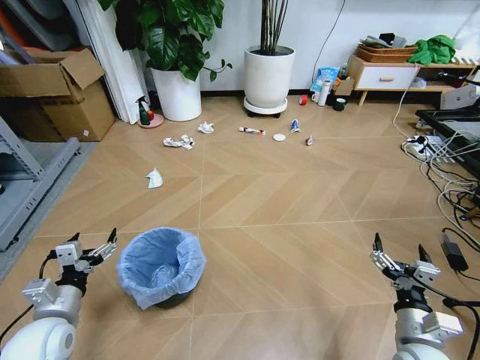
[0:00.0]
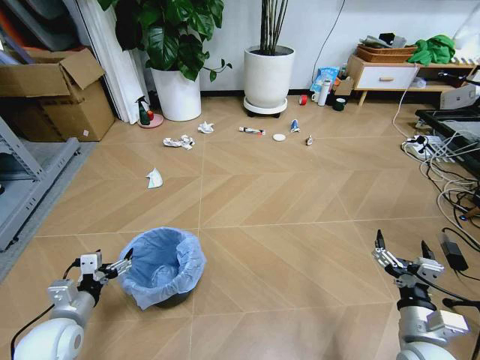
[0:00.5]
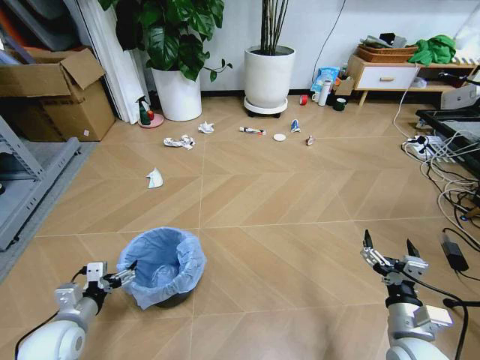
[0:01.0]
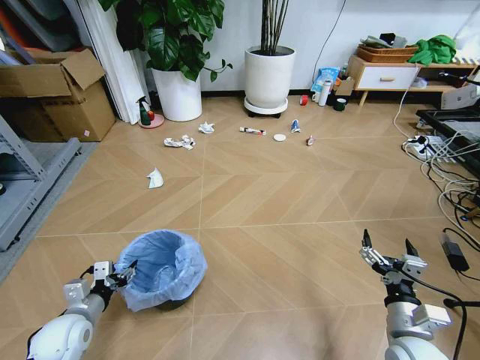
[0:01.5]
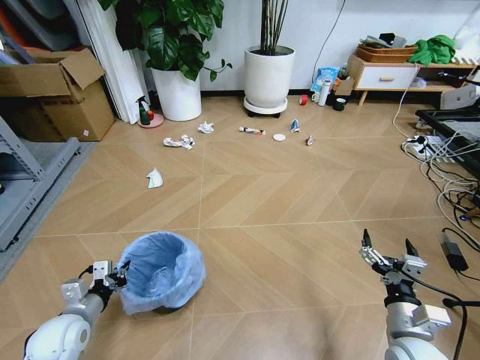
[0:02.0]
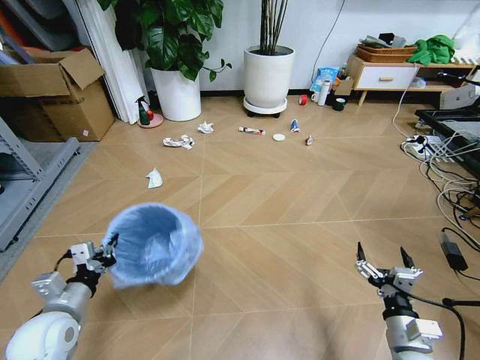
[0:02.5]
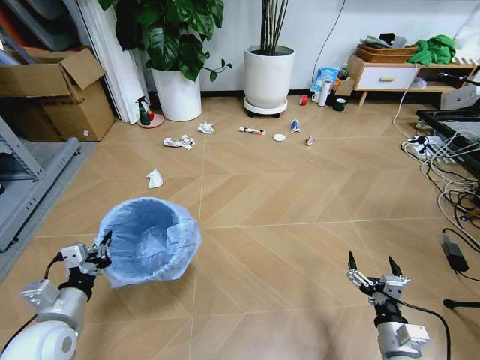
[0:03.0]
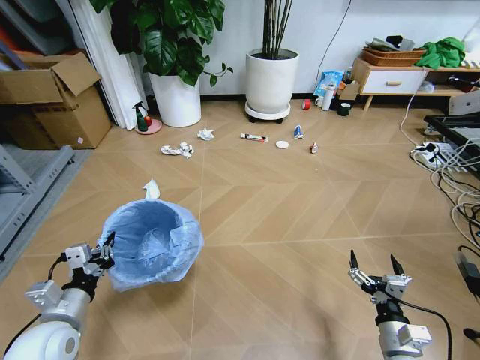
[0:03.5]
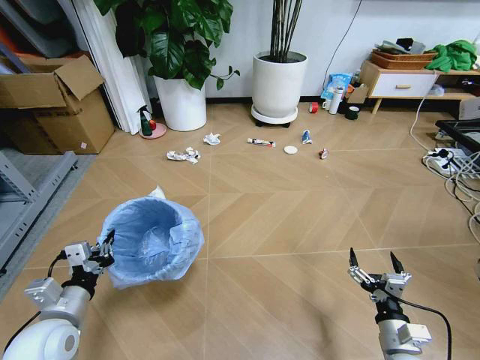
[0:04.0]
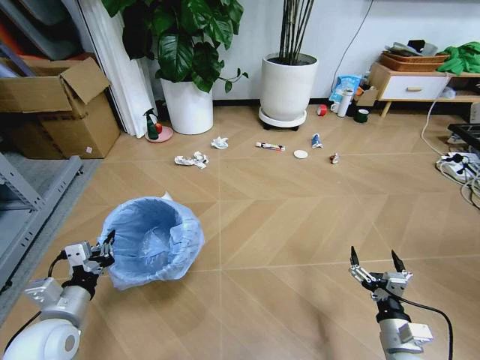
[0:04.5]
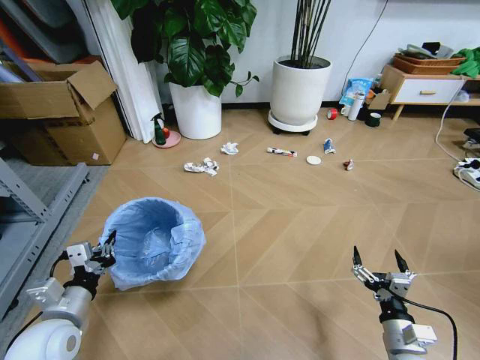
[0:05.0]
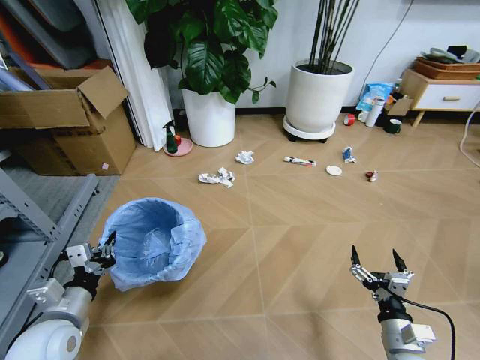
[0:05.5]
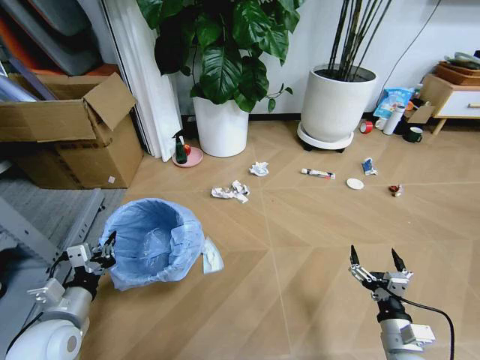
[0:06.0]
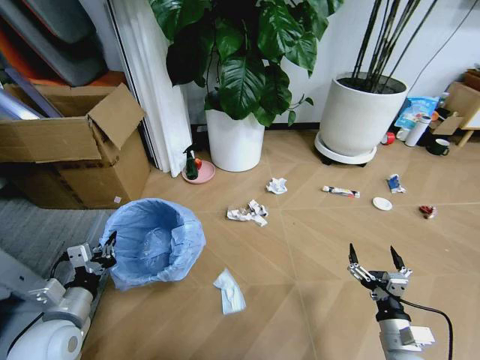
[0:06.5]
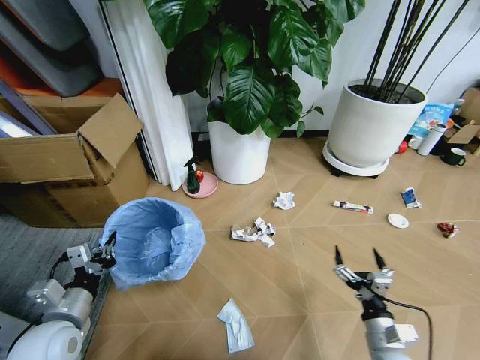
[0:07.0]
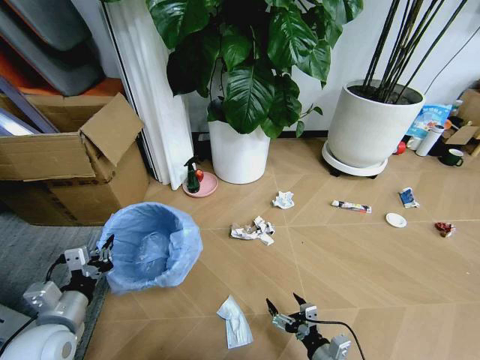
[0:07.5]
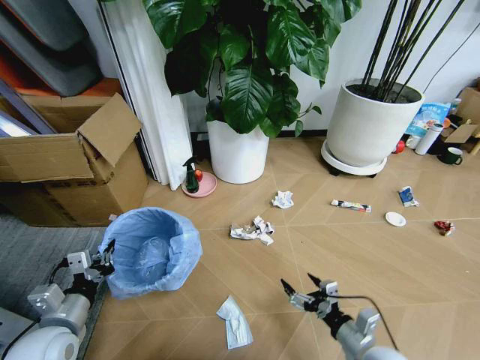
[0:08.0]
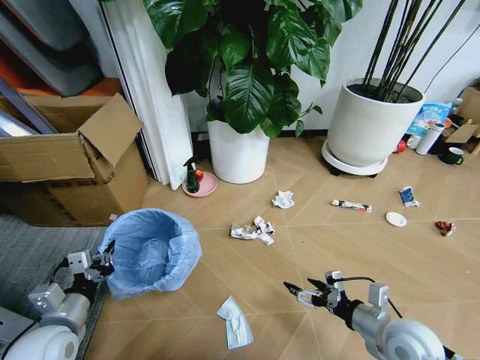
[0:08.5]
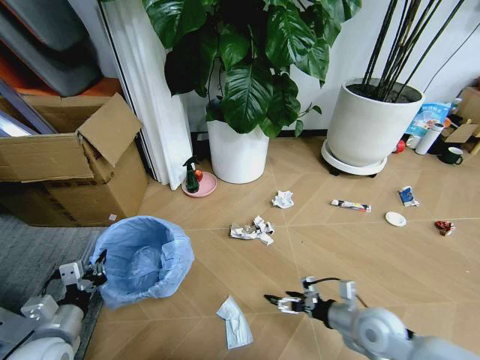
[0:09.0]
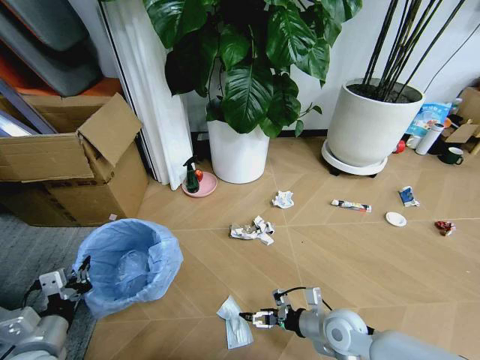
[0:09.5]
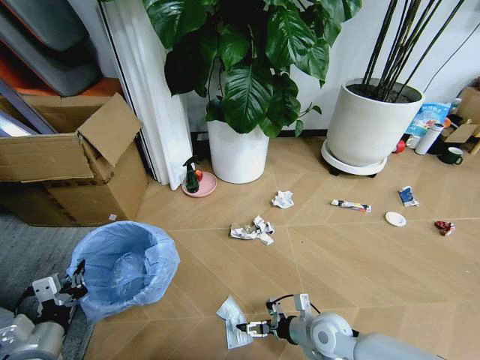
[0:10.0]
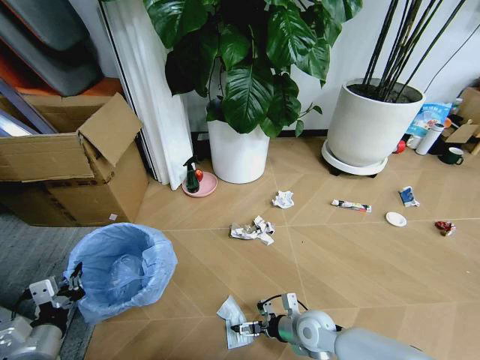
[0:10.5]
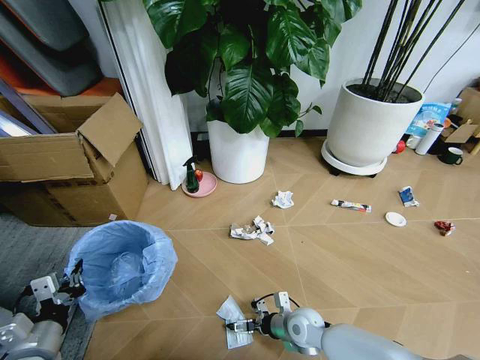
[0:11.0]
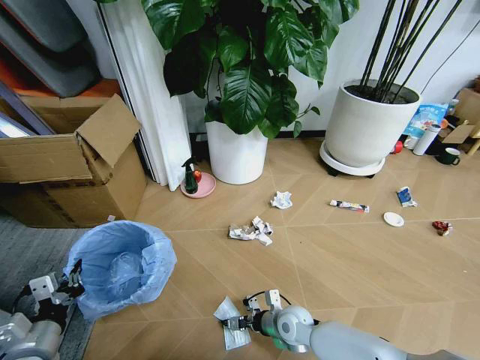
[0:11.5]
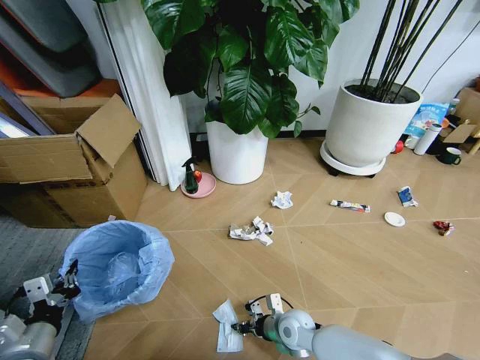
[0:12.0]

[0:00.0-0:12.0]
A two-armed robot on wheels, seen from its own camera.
Task of the whole recording: Pick up the trash bin and place the garbage on the floor into it.
2.0 to 4.0 s: The left gripper heads upward, covering approximately 5 cm. The right gripper shifts about 5 cm downward.
8.0 to 10.0 s: The left gripper changes place by approximately 5 cm. The right gripper is displaced forward and to the left by about 10 cm.
10.0 to 12.0 s: The right gripper shifts approximately 10 cm to the left and downward, and closes up.

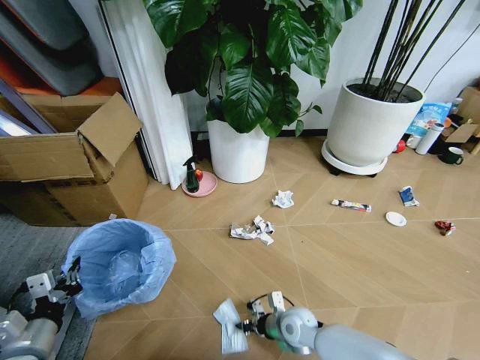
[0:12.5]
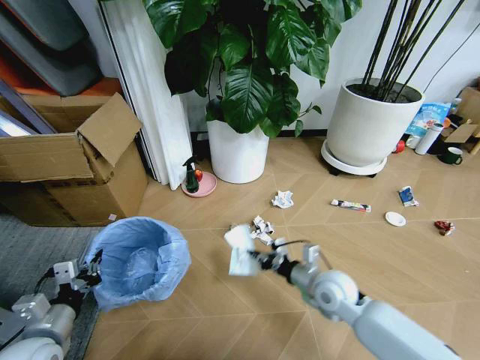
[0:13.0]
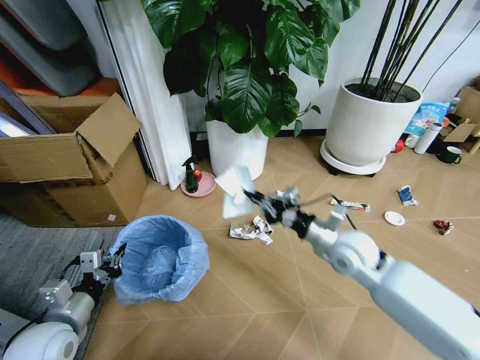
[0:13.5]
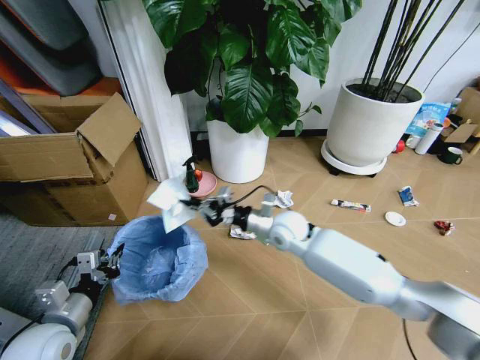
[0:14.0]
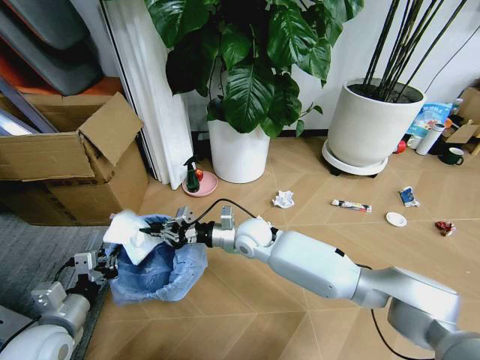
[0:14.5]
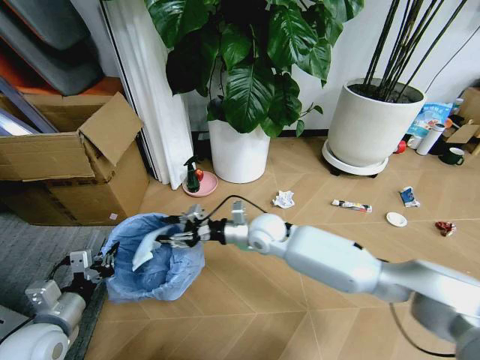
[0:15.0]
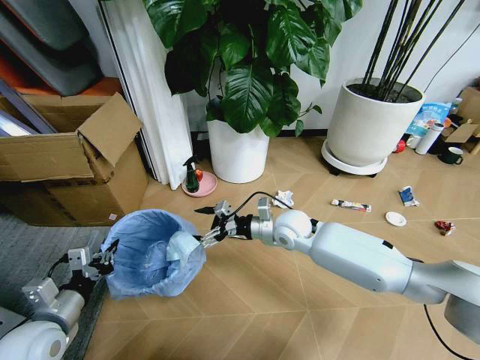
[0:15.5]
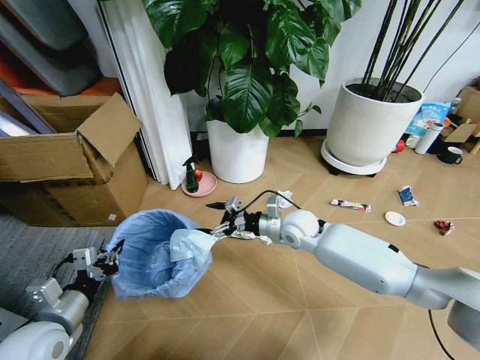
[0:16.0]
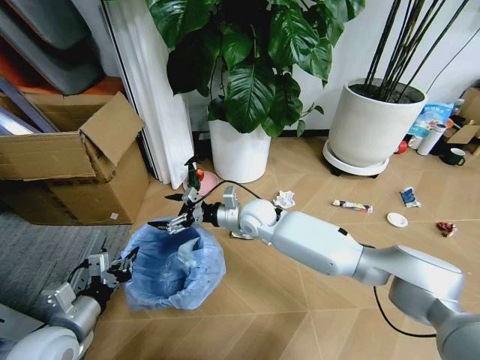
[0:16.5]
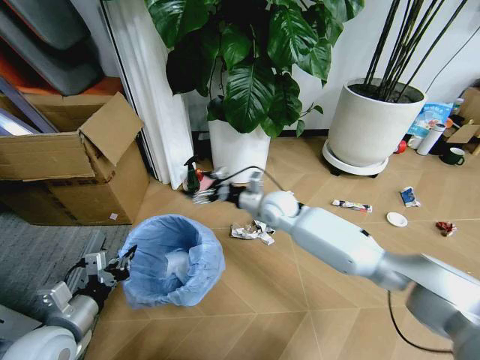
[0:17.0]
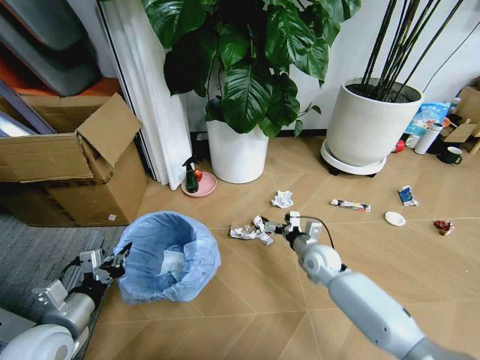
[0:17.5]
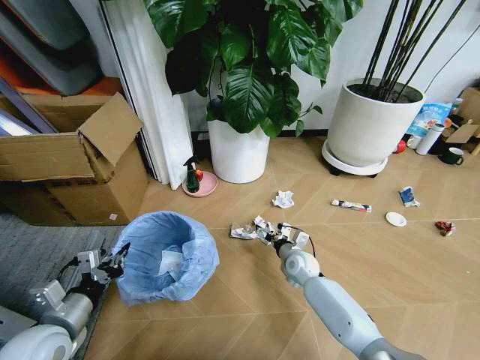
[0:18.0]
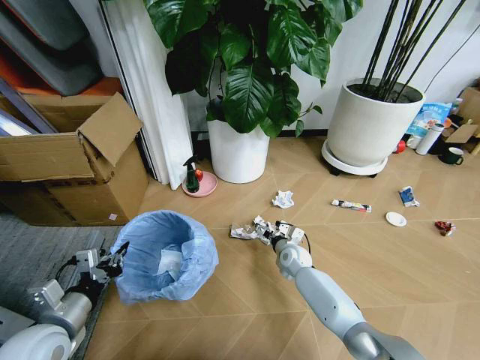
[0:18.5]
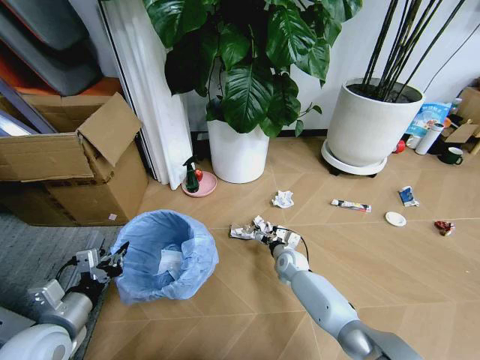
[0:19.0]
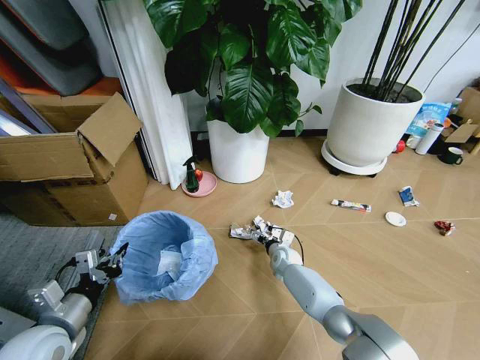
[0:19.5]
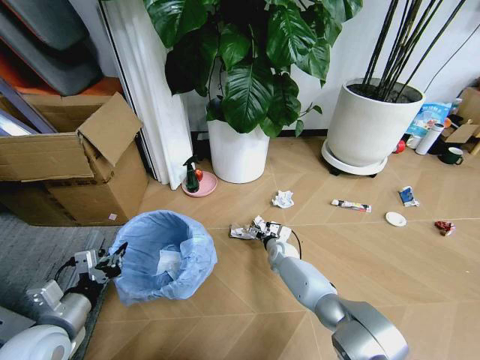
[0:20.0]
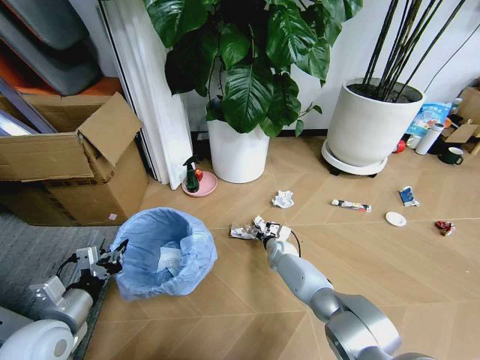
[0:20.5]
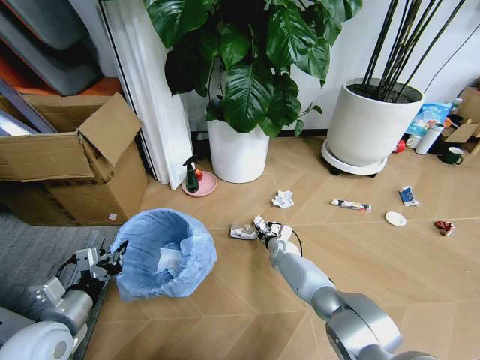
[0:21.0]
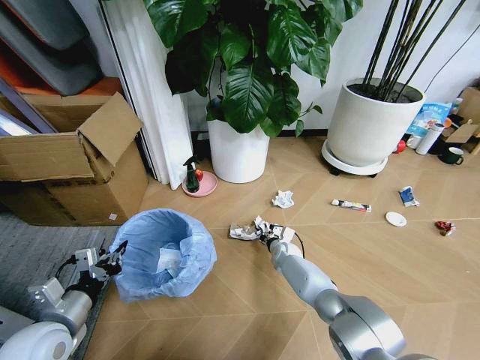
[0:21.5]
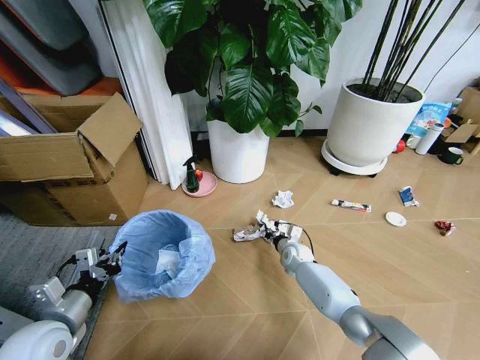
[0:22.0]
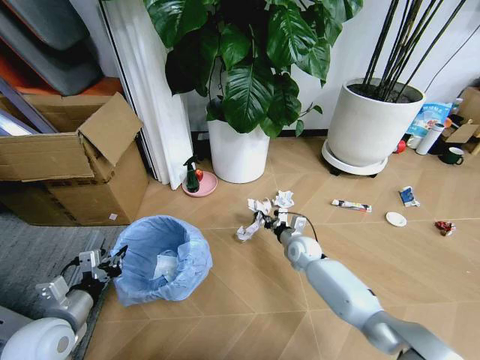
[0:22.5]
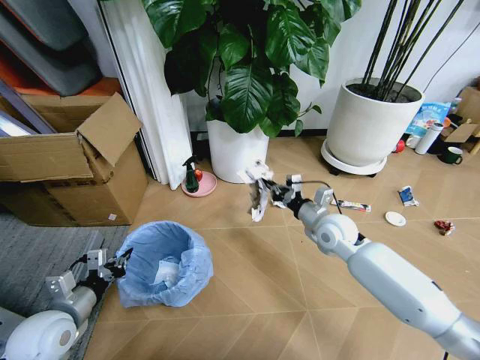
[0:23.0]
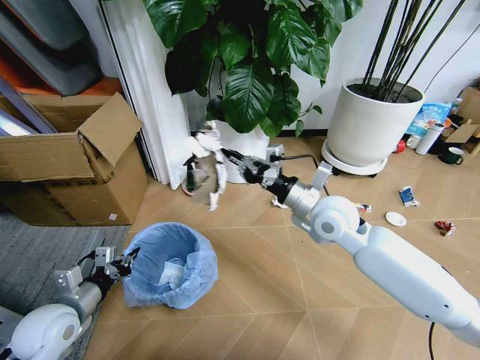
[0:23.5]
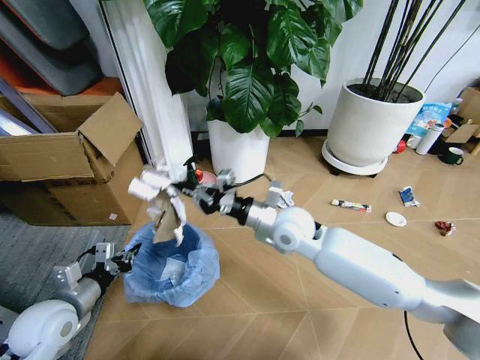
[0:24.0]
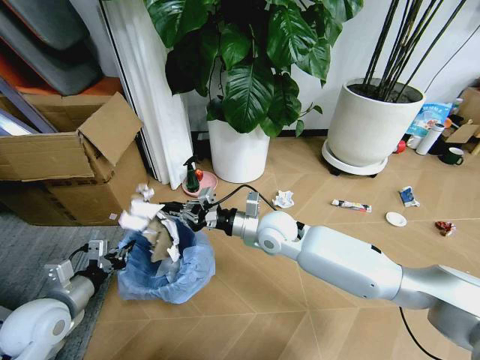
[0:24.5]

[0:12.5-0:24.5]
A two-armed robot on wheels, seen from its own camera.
Task of the whole recording: Pick up the trash bin and place the garbage on the floor into it.
12.5 to 14.5 s: The right gripper shifts about 25 cm upward, forward and to the left.
14.5 to 16.5 s: The right gripper reaches about 10 cm to the right, then returns, and opens up.
16.5 to 18.5 s: The right gripper moves downward and to the right, about 25 cm.
18.5 to 20.5 s: The right gripper changes place by about 5 cm.
20.5 to 22.5 s: The right gripper shifts some 10 cm upward and to the right, and closes its fingers.
22.5 to 24.5 s: The right gripper goes roughly 20 cm upward and to the left.

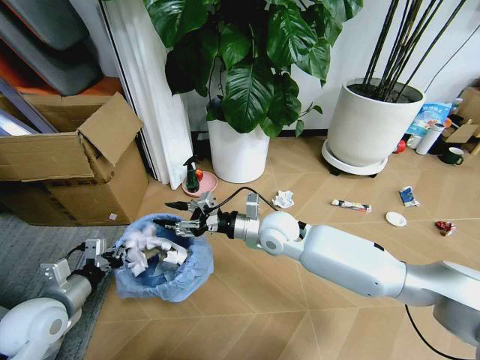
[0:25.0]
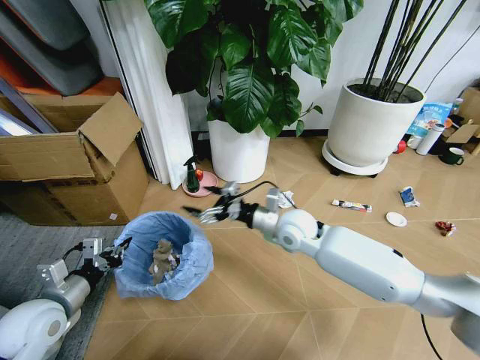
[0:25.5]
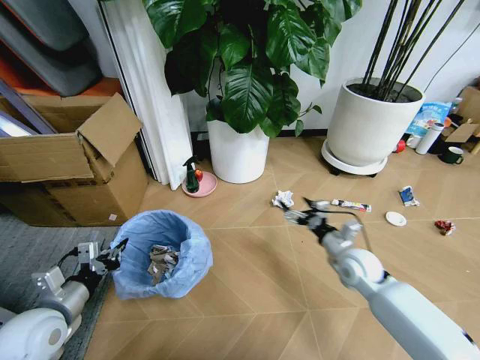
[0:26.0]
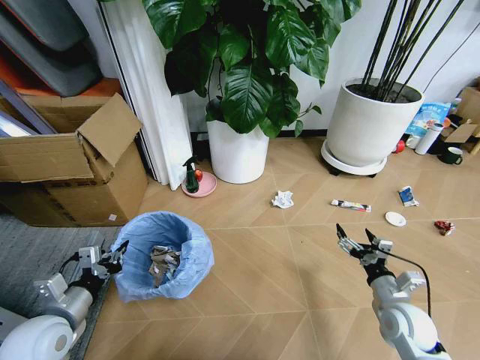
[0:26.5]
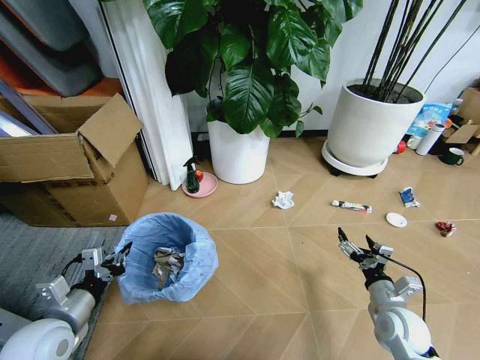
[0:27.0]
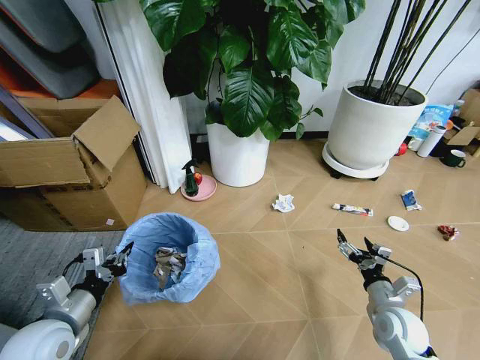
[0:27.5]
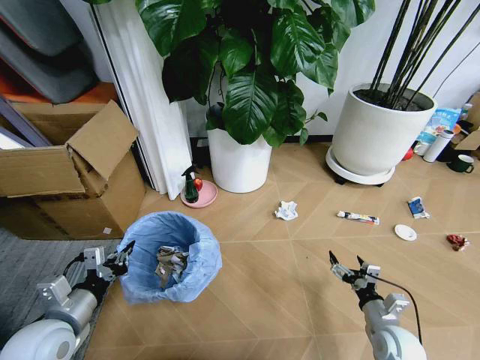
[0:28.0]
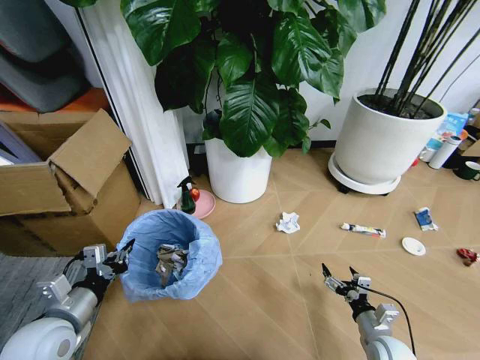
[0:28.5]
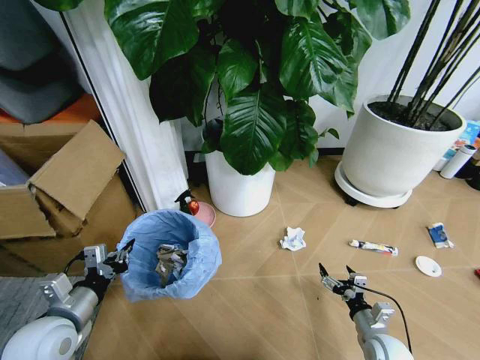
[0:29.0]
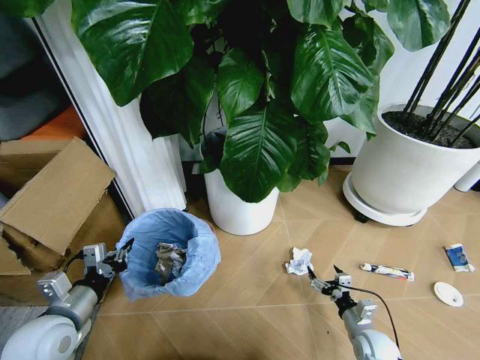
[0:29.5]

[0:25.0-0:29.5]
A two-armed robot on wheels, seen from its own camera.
Task of the whole recording: Pick up the trash bin and place the garbage on the floor into it.
25.0 to 27.0 s: The right gripper is displaced to the right, backward and downward by approximately 35 cm, and opens.
27.0 to 29.5 s: The right gripper travels downward by some 10 cm.
